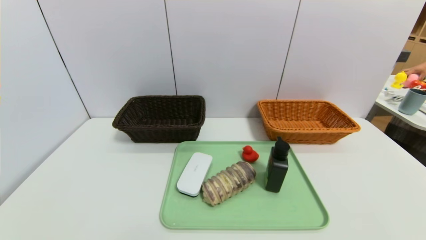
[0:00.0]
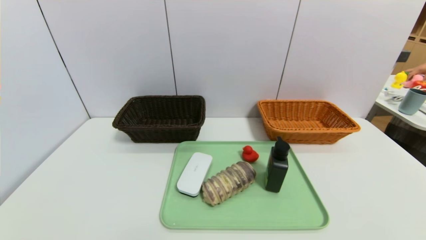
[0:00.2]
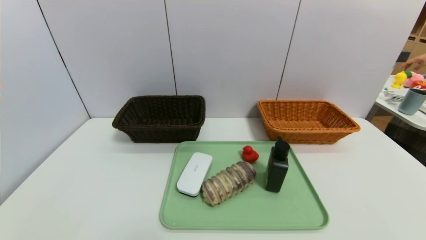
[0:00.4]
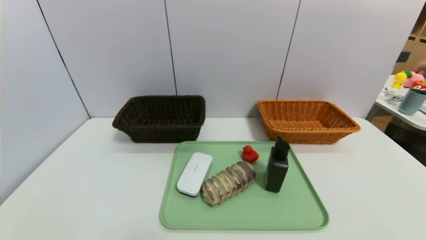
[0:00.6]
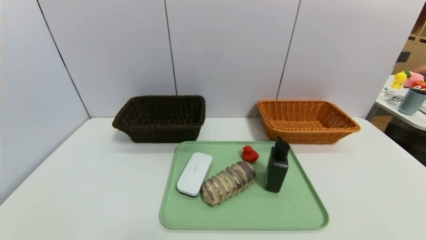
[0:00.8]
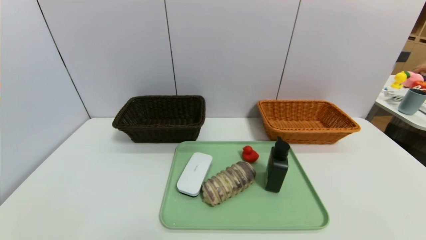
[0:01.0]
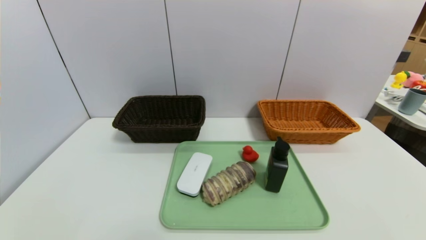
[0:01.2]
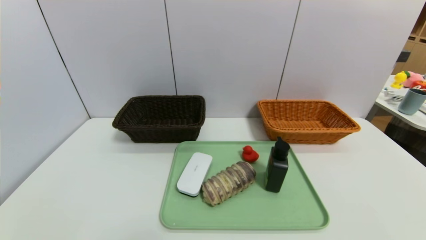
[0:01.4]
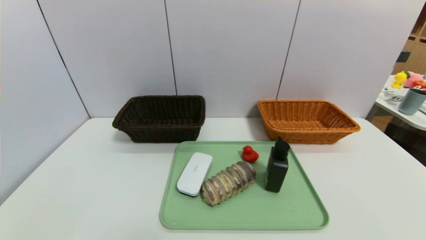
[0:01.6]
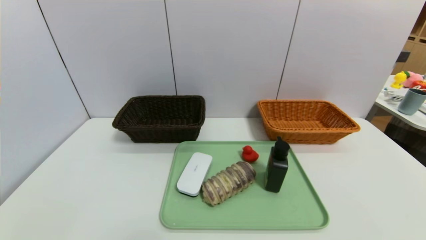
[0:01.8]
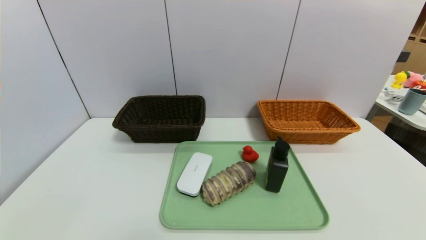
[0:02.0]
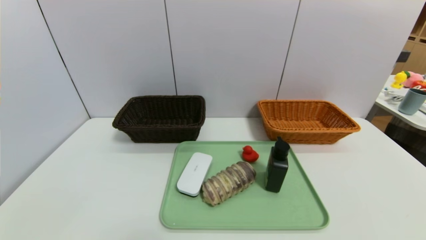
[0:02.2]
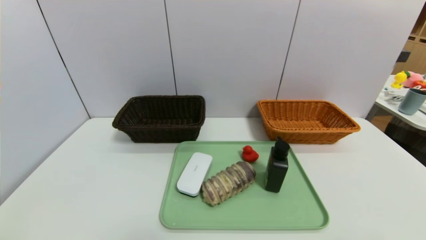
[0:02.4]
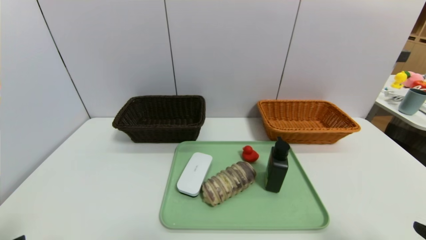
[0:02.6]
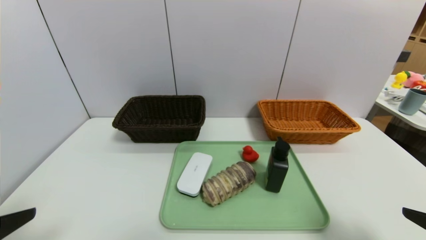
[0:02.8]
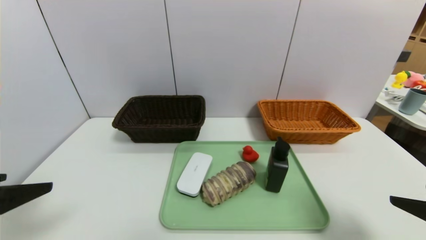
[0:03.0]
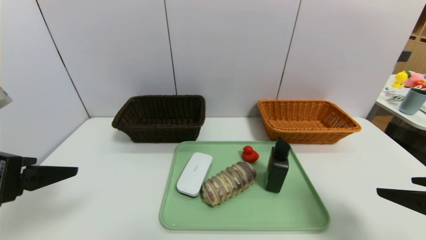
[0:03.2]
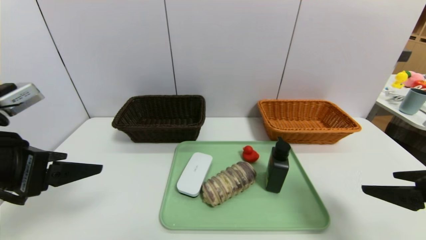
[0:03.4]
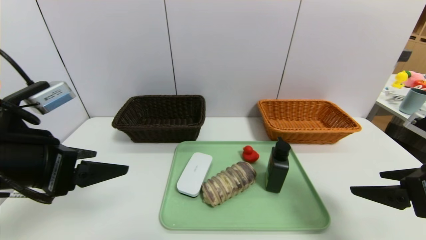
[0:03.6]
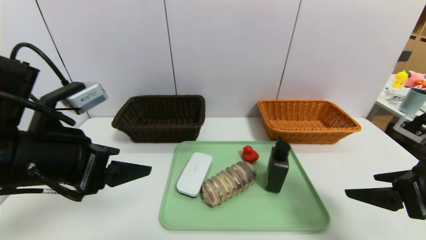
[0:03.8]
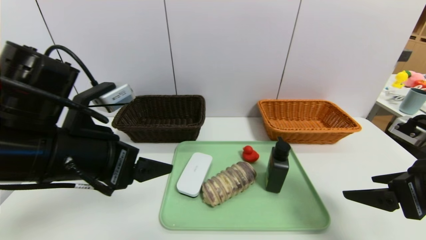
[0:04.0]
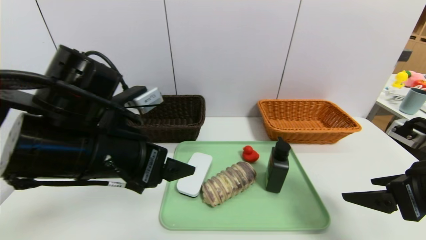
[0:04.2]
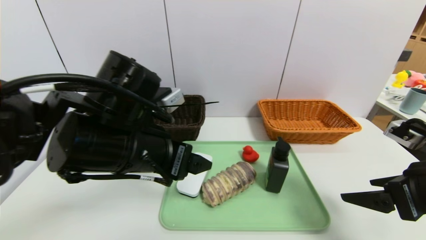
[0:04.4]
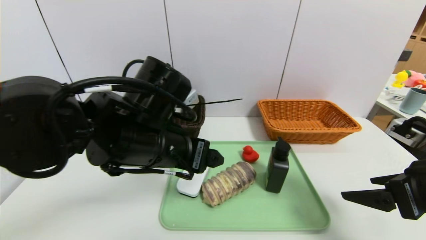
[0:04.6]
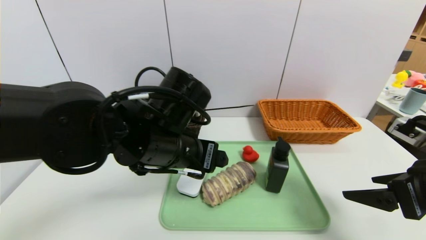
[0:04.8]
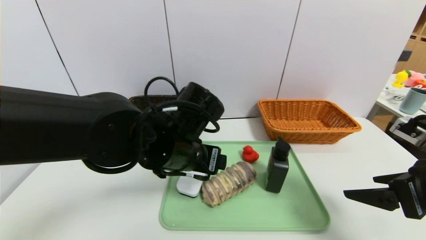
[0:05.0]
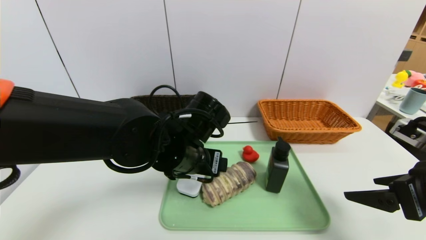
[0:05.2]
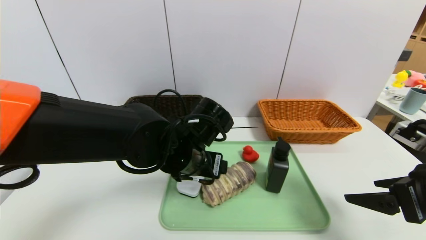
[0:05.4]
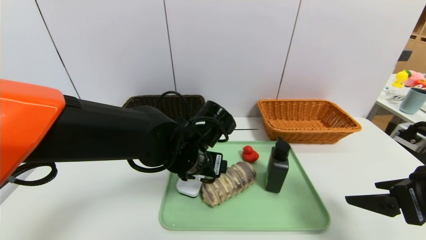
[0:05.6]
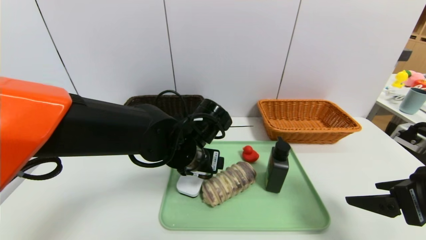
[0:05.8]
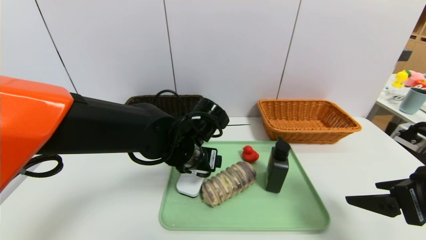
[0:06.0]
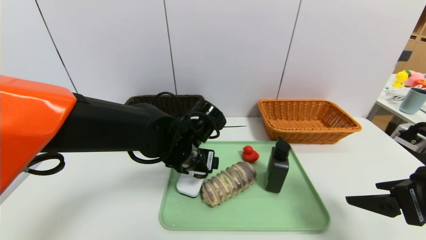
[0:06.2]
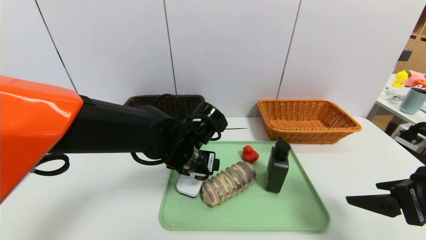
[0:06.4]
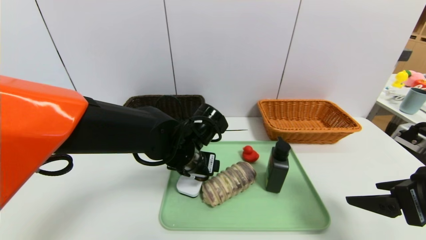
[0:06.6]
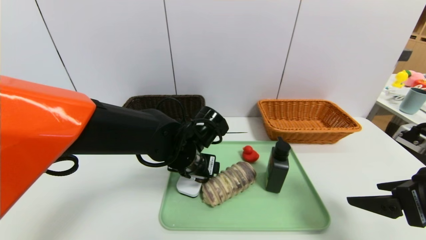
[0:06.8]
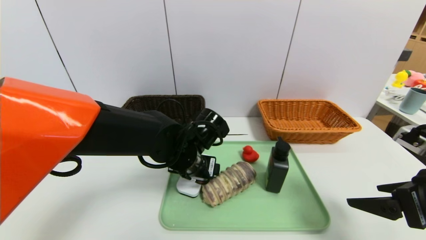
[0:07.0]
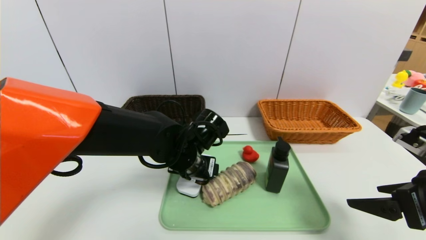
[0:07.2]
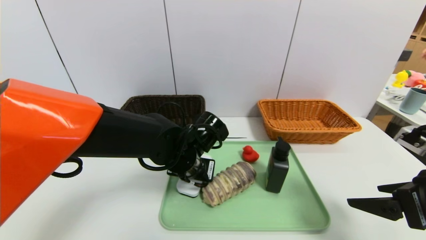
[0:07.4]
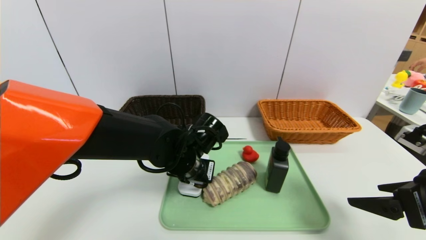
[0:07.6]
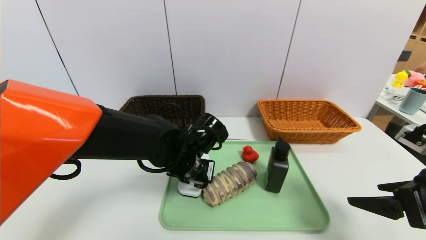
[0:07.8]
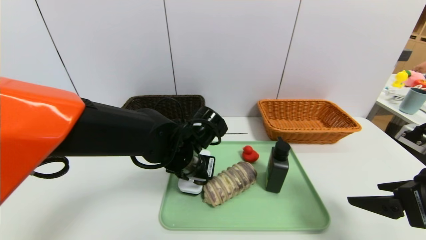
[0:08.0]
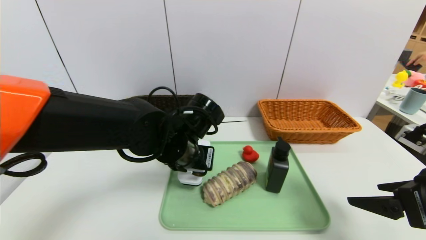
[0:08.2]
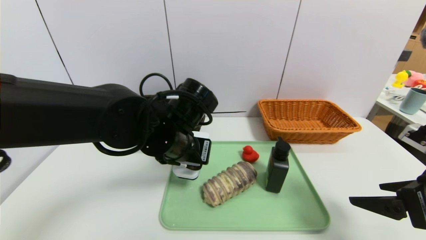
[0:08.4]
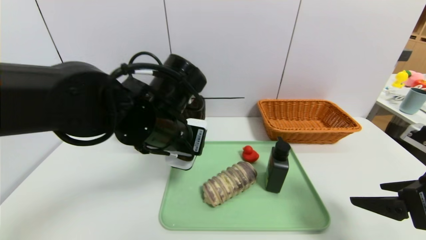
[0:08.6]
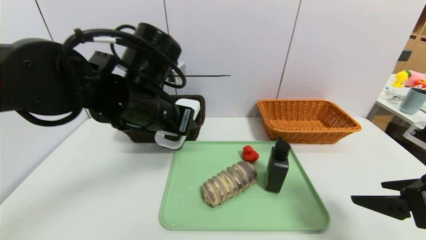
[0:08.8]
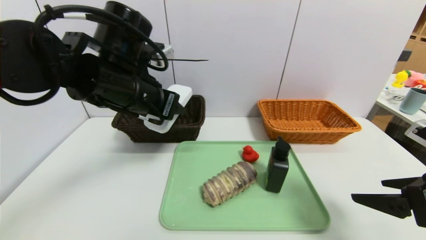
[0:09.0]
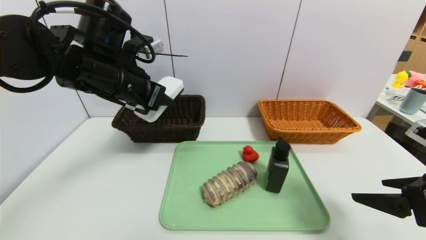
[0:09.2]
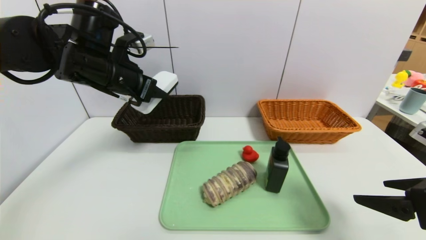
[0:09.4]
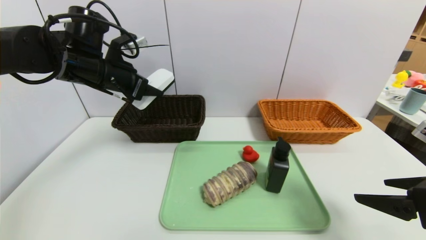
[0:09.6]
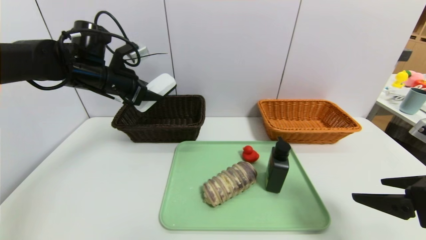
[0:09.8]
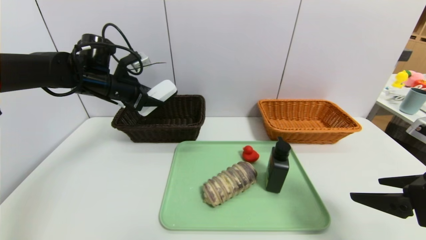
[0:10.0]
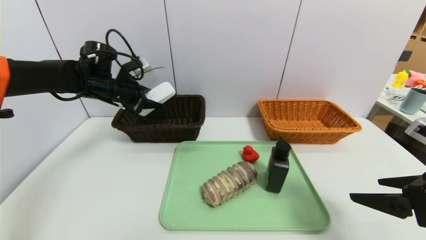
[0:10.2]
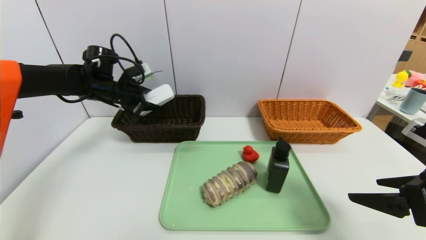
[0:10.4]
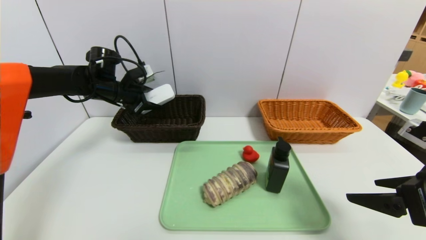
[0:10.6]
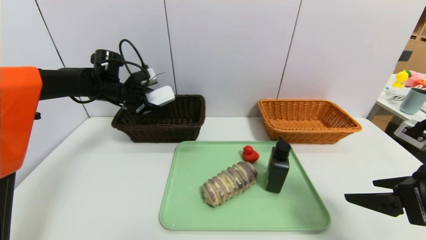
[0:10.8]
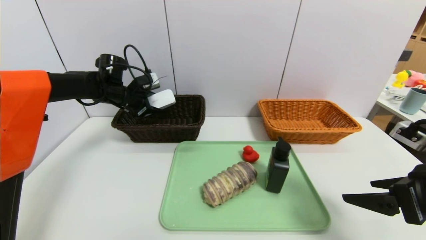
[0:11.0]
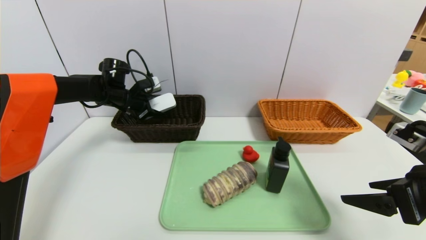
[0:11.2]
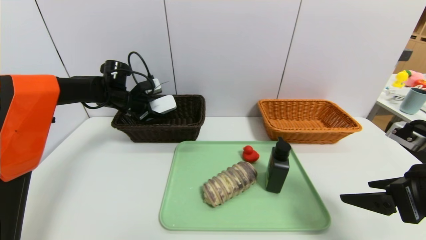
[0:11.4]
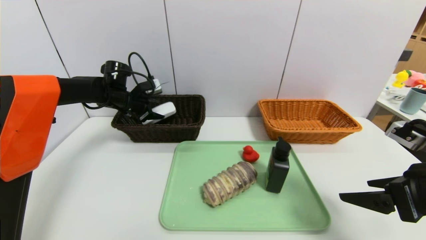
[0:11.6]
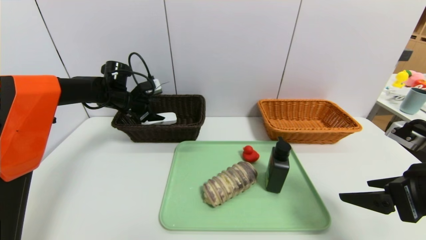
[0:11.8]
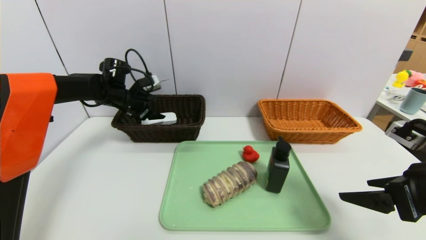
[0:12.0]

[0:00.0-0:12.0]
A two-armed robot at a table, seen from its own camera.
Task of the whole recording: place the food in the right basket with the right gripper, and place the non food items in the left basket with the left gripper.
0:01.6 to 0:03.0: The left gripper travels upward and forward by approximately 20 cm. The right gripper travels forward and upward by approximately 15 cm.
0:03.0 to 0:04.4: The right gripper goes roughly 5 cm forward; the left gripper is displaced to the right and forward by about 20 cm.
0:04.4 to 0:06.0: The left gripper shifts approximately 15 cm downward, forward and to the right.
0:06.0 to 0:07.6: The left gripper closes.
0:07.6 to 0:09.0: The left gripper goes about 20 cm upward and to the left.
0:09.0 to 0:10.4: The left gripper travels forward, to the left and downward by roughly 20 cm.
0:10.4 to 0:12.0: The left gripper shifts by some 5 cm, and opens its fingers.

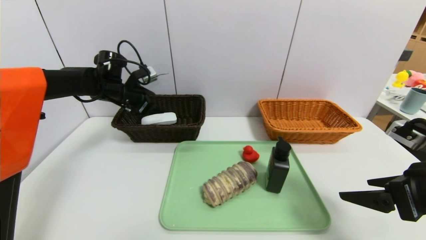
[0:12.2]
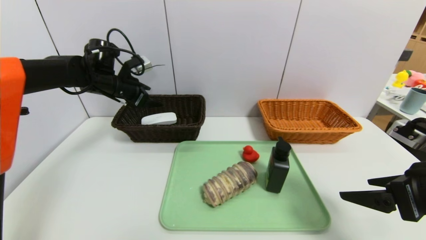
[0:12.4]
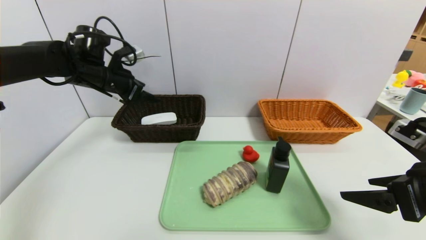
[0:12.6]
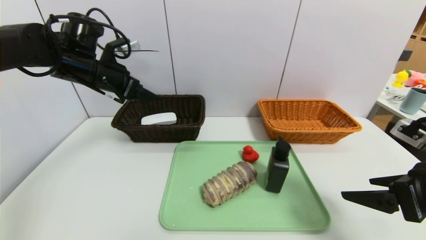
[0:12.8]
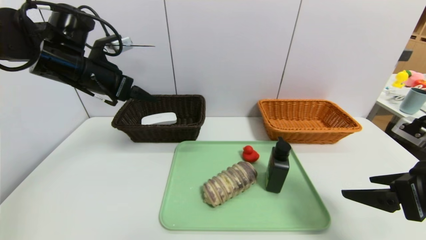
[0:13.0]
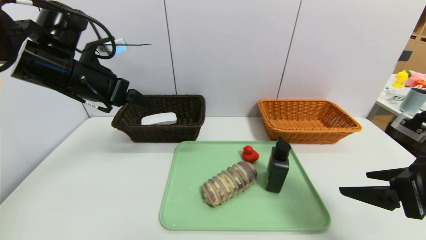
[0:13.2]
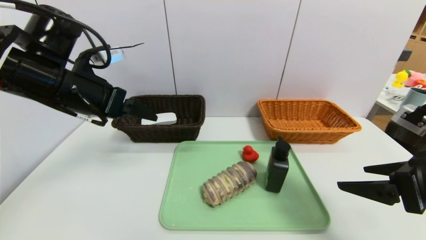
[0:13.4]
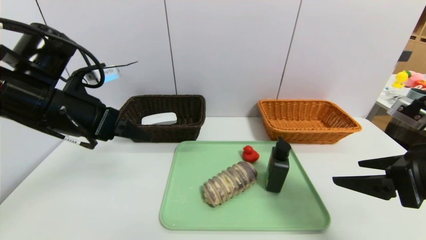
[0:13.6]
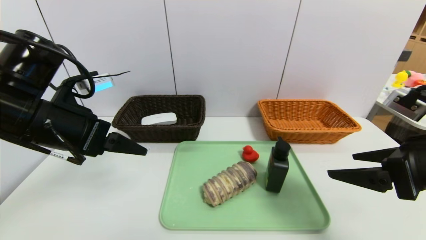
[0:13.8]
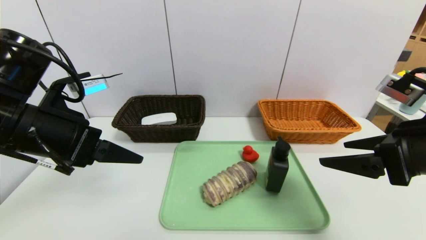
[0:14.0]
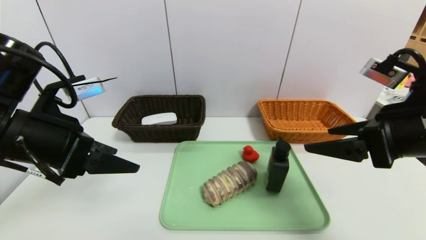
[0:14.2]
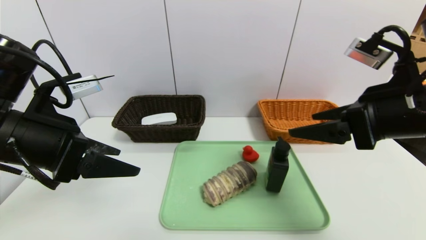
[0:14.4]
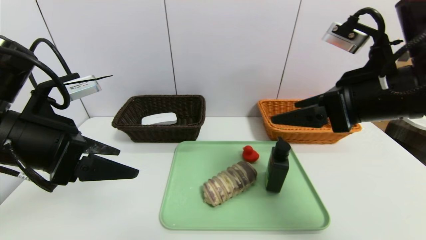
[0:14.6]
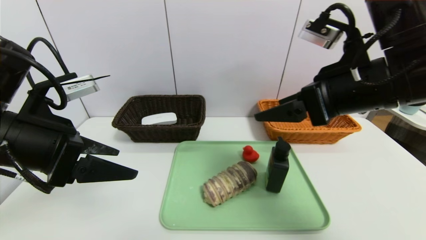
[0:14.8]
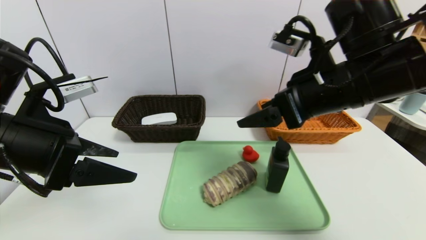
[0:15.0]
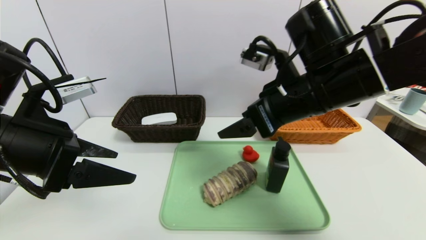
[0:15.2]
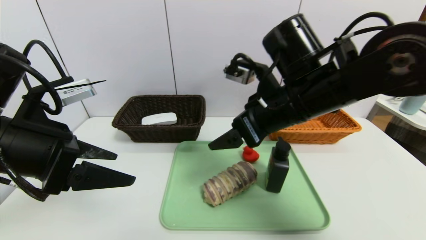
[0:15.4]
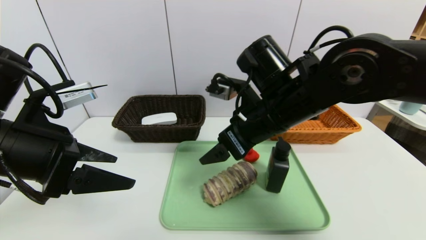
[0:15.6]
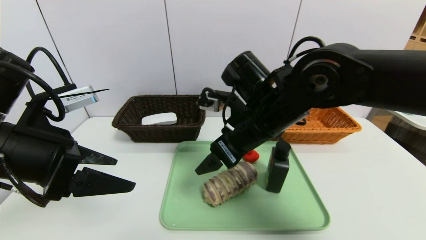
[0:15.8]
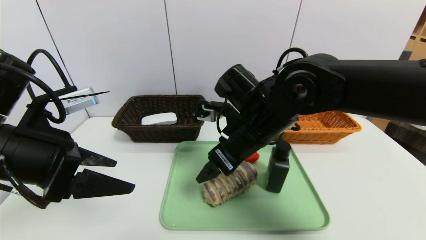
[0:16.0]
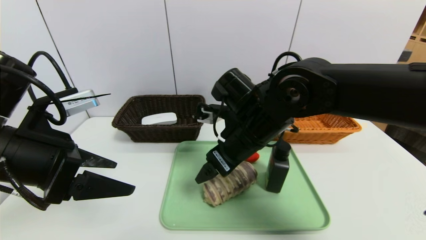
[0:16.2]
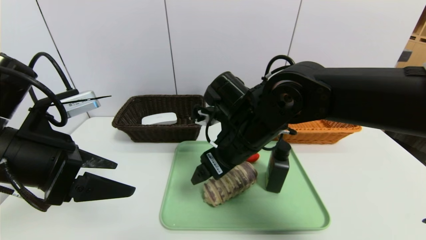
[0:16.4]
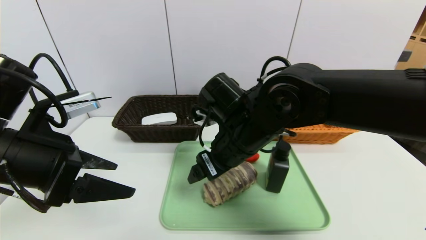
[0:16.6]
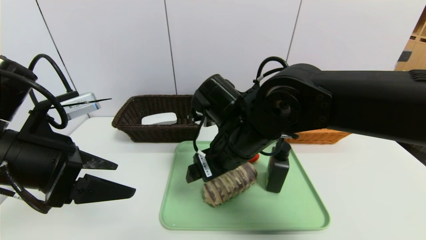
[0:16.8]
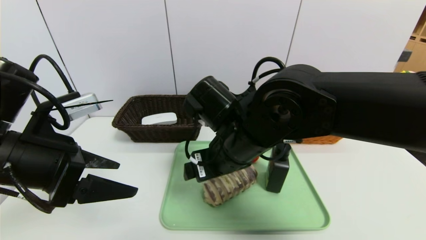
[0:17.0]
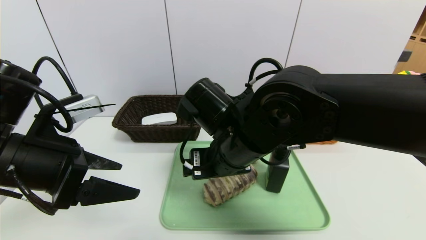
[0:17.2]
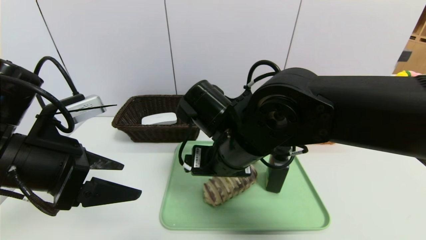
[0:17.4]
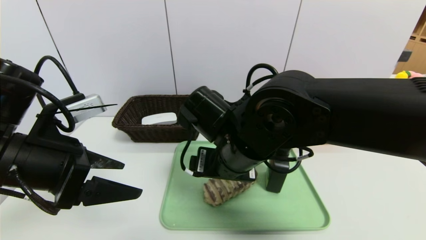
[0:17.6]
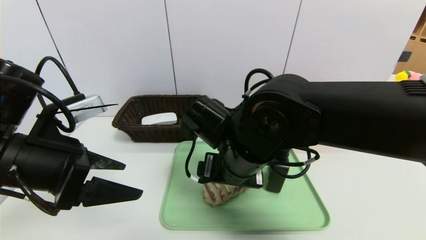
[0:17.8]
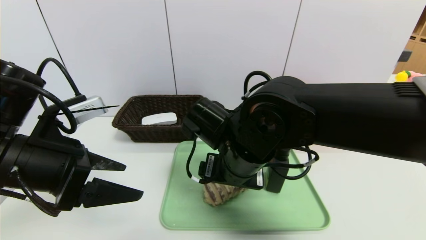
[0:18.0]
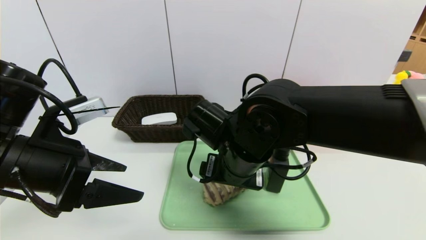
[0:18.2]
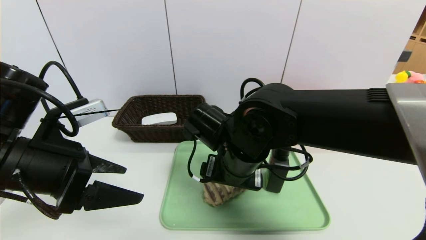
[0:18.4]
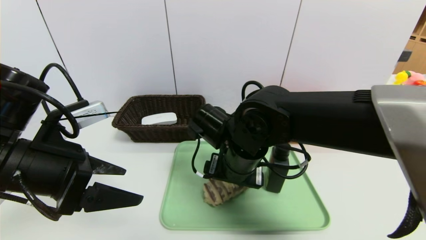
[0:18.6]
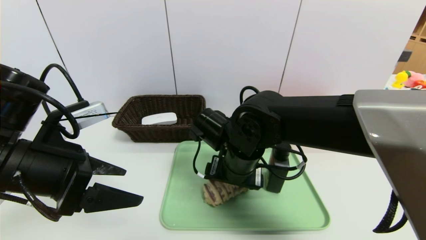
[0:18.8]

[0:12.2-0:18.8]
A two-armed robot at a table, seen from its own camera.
Task of the whole recording: place the food in the right basket with the right gripper, and place the non food items in the left basket with the left gripper.
0:12.2 to 0:13.8: The left gripper is displaced backward by approximately 25 cm.
0:13.8 to 0:15.4: The right gripper travels to the left and forward by some 20 cm.
0:15.4 to 0:17.2: The right gripper is displaced to the left and downward by approximately 10 cm.
0:17.2 to 0:18.8: The right gripper heads downward, covering approximately 5 cm.
